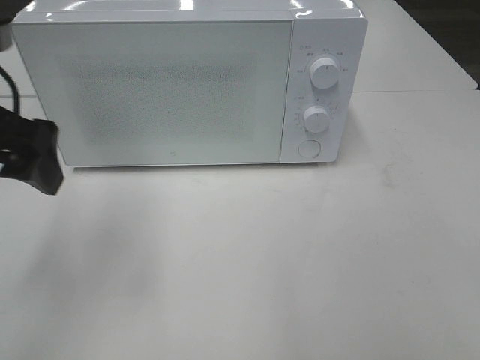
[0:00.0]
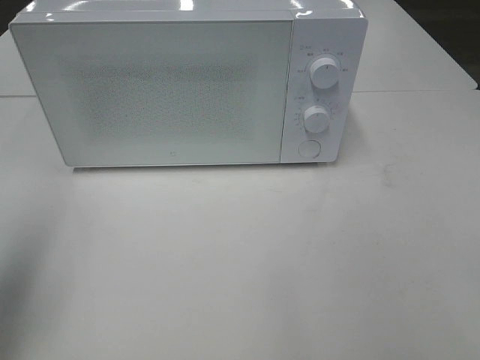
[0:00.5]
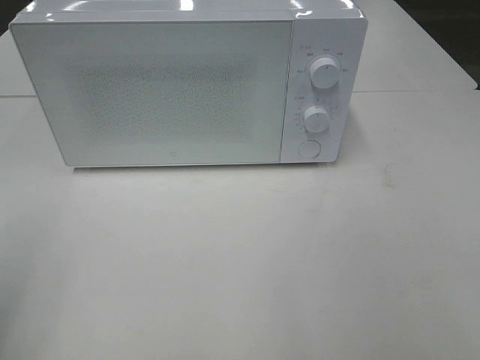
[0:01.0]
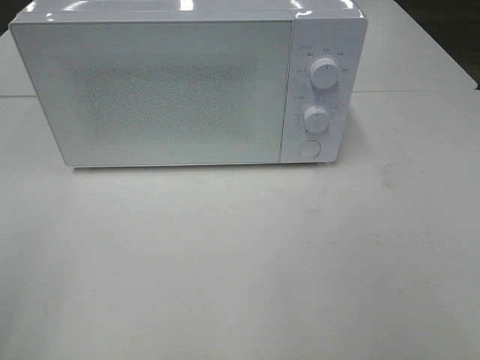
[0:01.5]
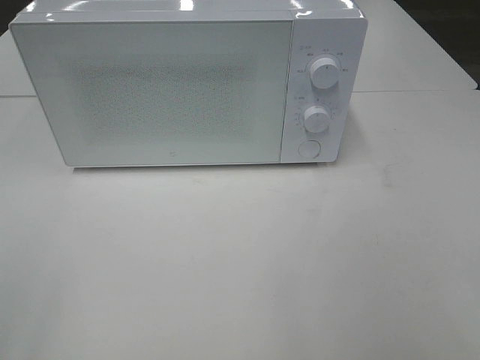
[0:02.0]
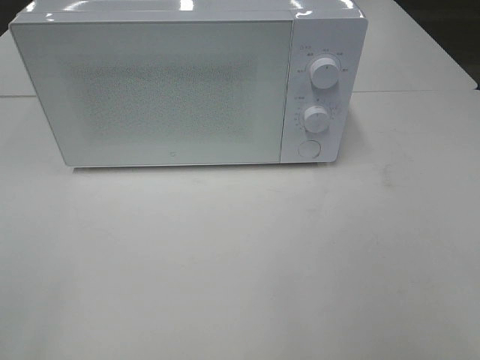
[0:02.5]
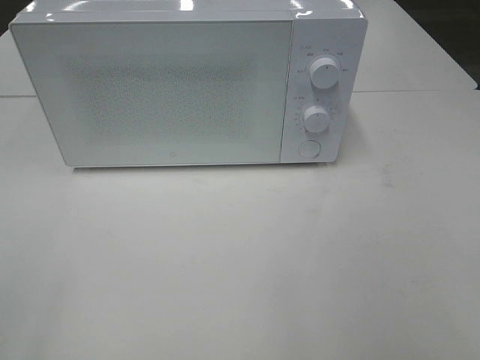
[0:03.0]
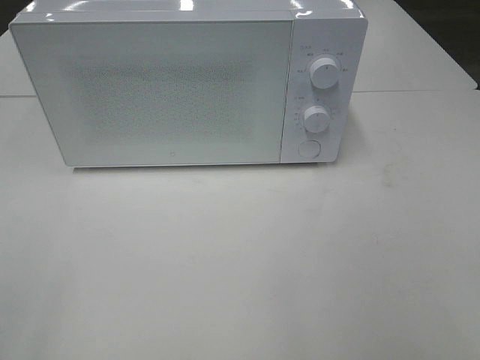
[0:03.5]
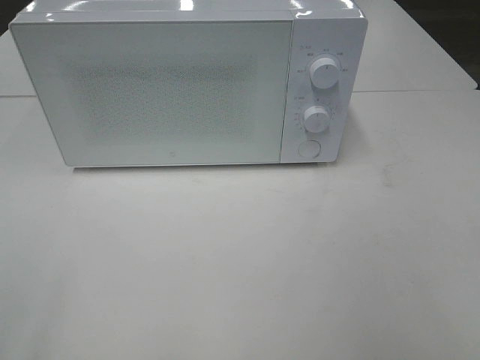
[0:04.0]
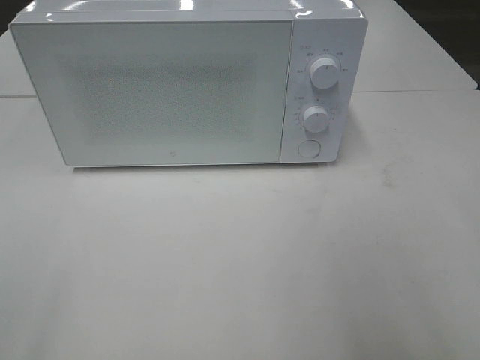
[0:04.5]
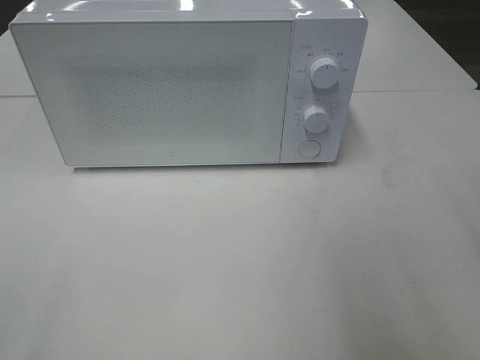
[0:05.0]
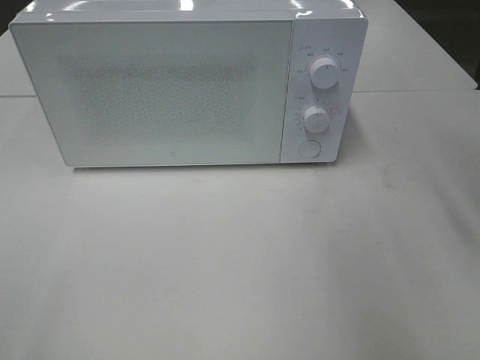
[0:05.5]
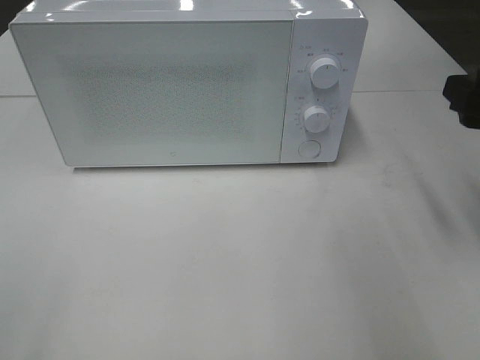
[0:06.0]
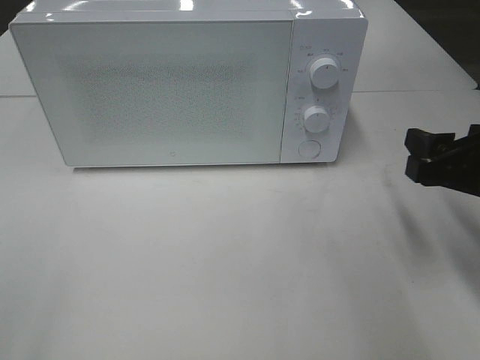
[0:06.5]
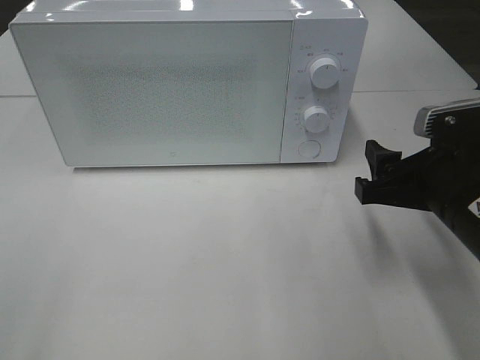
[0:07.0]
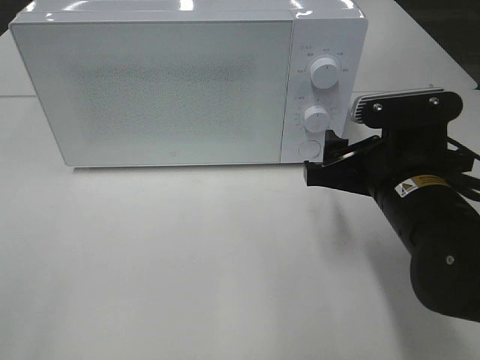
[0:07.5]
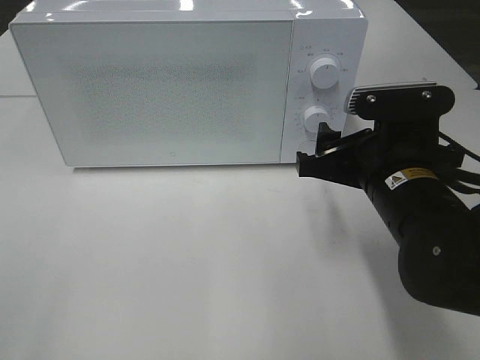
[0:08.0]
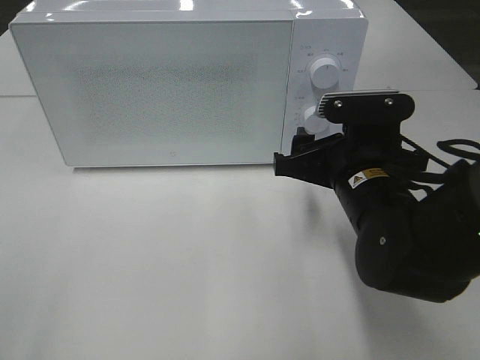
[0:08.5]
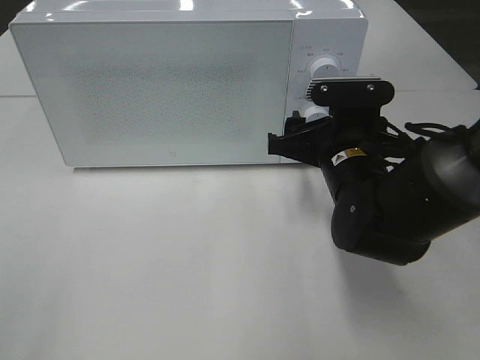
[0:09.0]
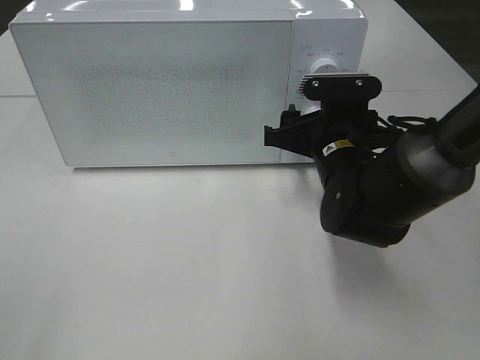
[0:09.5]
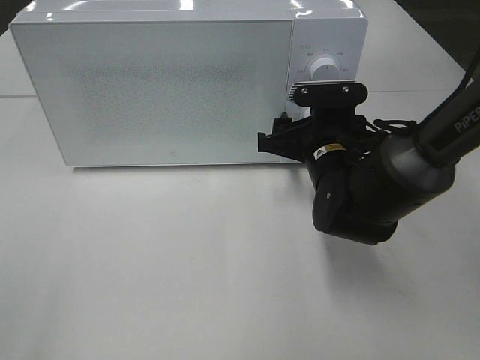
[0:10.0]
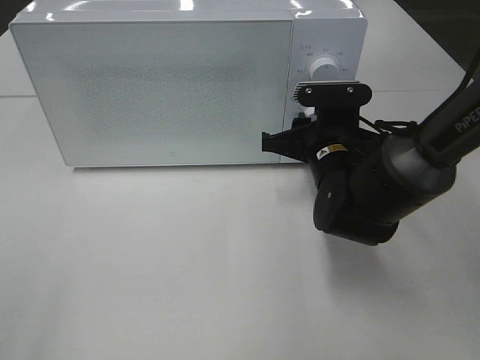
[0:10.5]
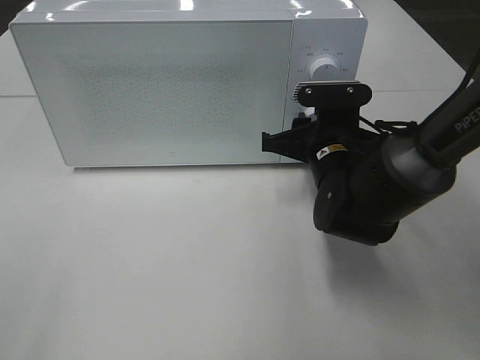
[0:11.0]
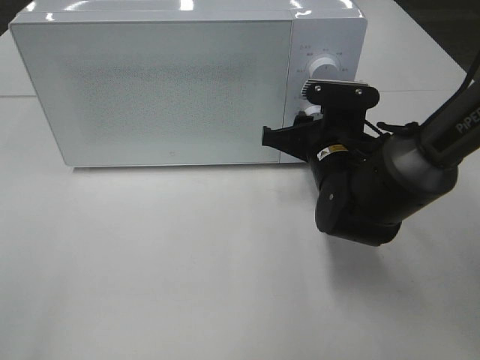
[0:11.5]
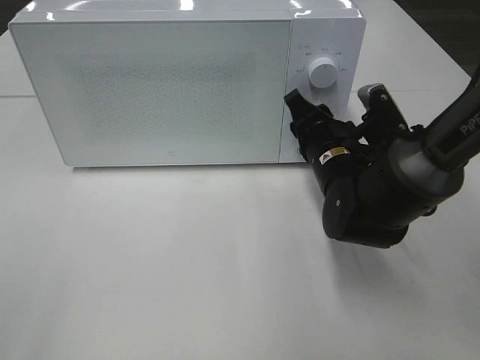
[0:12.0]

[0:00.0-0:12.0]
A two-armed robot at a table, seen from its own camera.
Task of the whole recording: Heat the burger.
0:00.0 to 0:02.0: The left gripper goes roughly 25 cm backward and to the left.
0:04.0 to 0:06.0: The right gripper goes approximately 20 cm forward.
0:06.0 to 0:08.0: The right gripper is displaced to the left and downward by some 15 cm.
0:08.0 to 0:10.0: The right gripper moves forward, about 10 cm.
0:10.0 to 0:12.0: The right gripper closes its fingers.

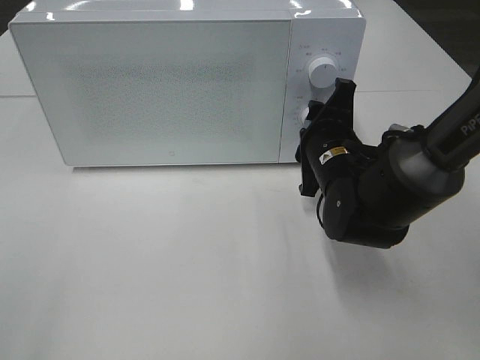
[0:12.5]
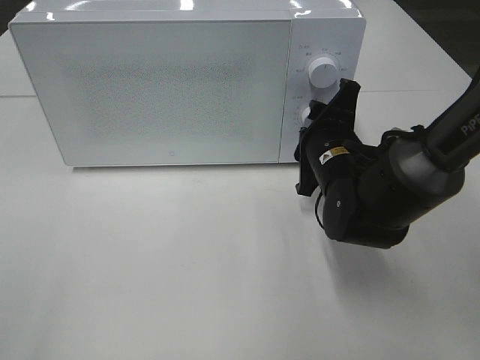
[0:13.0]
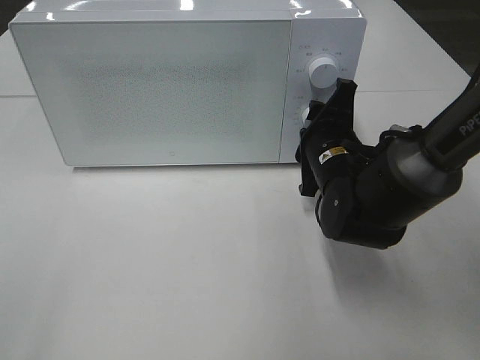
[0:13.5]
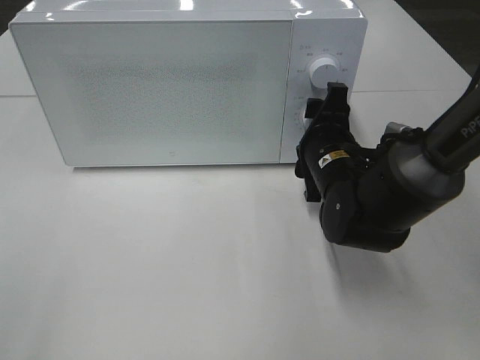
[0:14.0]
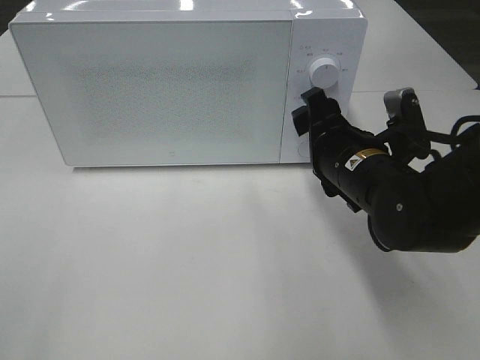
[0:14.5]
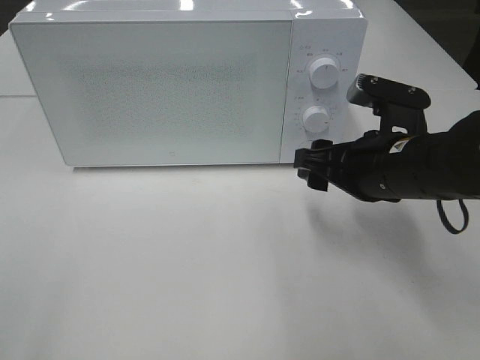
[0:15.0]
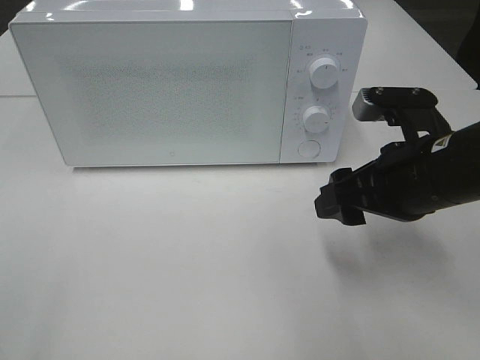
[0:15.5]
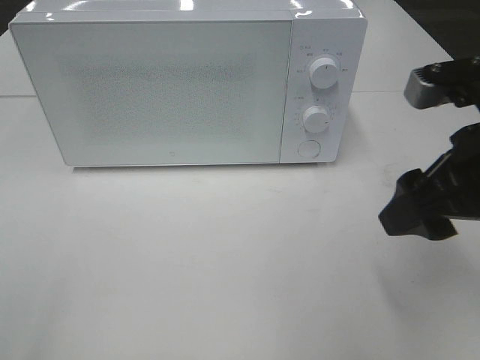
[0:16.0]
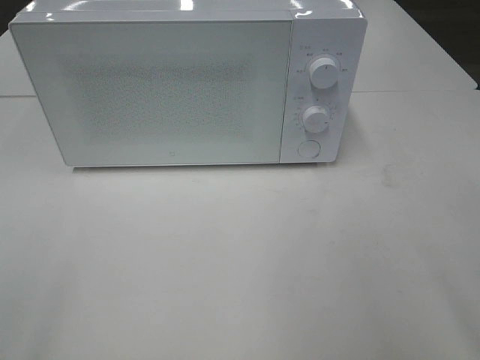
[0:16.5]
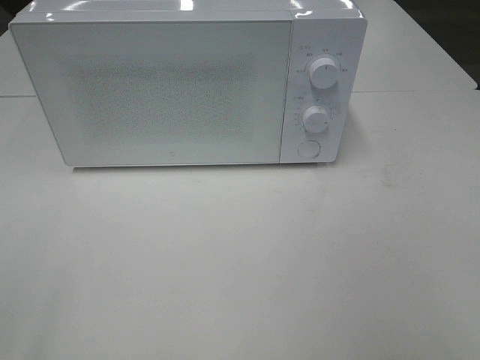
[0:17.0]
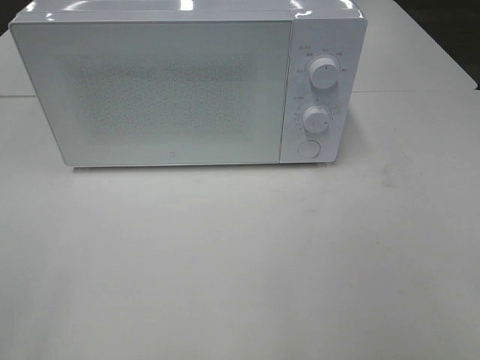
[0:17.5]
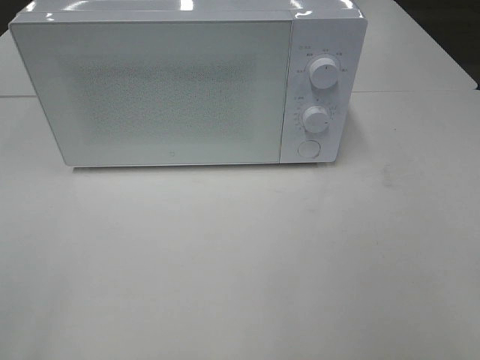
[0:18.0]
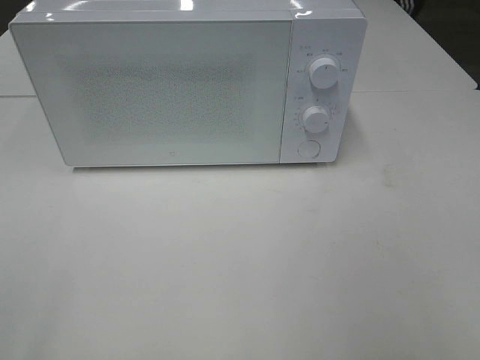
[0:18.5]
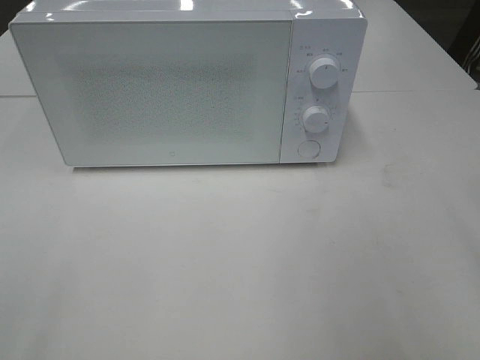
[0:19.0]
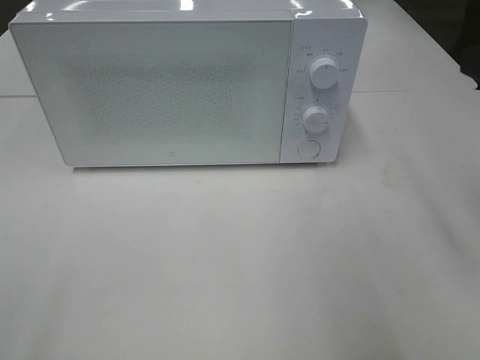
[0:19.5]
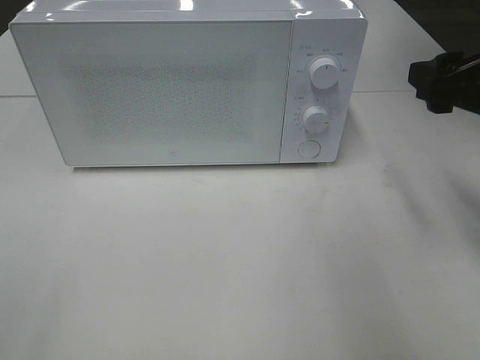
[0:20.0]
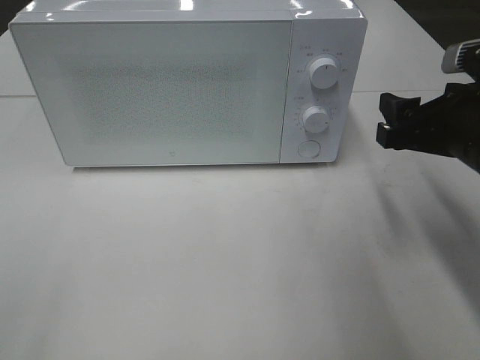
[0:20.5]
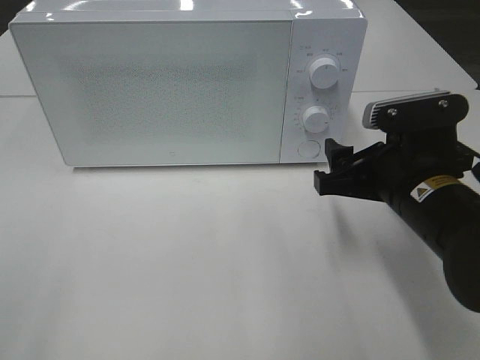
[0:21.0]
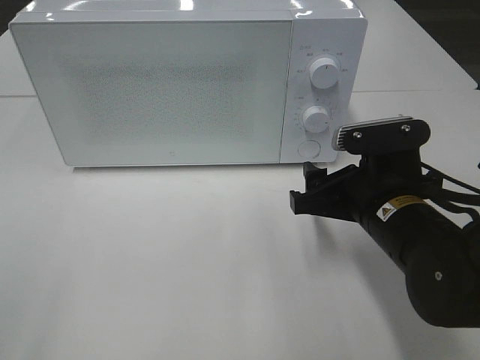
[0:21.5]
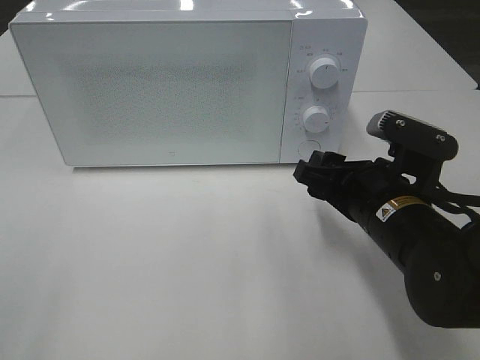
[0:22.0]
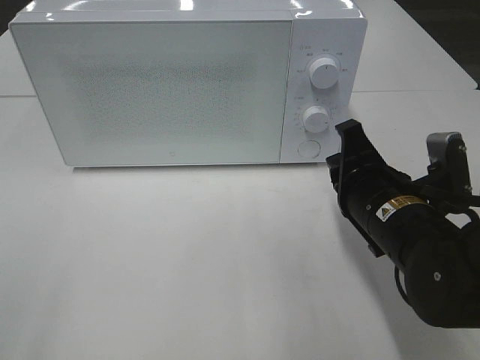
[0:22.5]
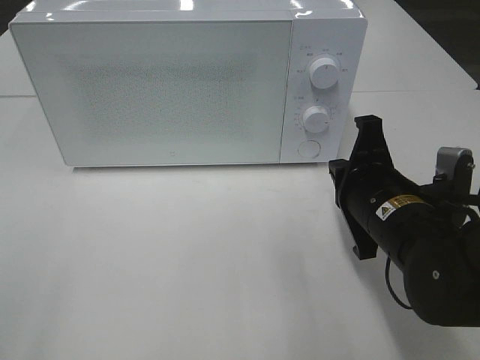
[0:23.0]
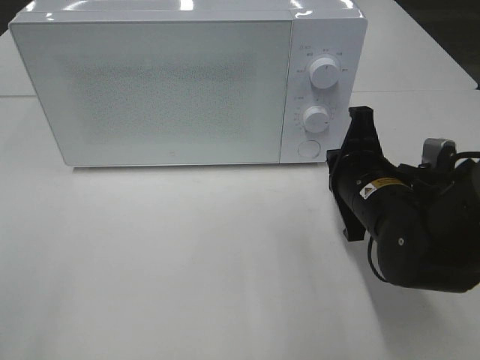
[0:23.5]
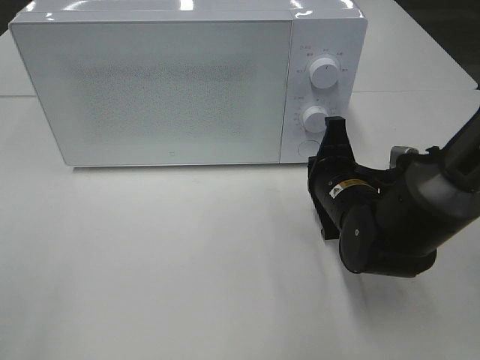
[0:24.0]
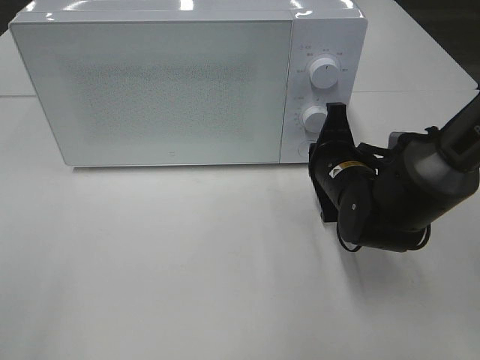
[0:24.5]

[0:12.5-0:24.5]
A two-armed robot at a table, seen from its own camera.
Task of the whole recording: Heat the burger.
0:12.5 to 0:14.5: The right gripper changes place by some 5 cm.
0:14.5 to 0:16.5: The right gripper travels backward, upward and to the right by roughly 30 cm.
0:18.5 to 0:20.5: The right gripper heads forward and downward, covering roughly 25 cm.
0:20.5 to 0:22.5: The right gripper travels to the left and downward by about 10 cm, and closes up.
0:22.5 to 0:24.5: The right gripper is displaced forward by approximately 10 cm.

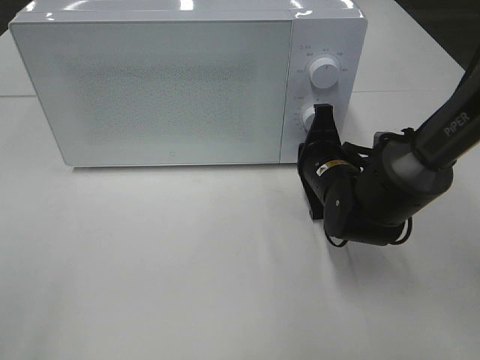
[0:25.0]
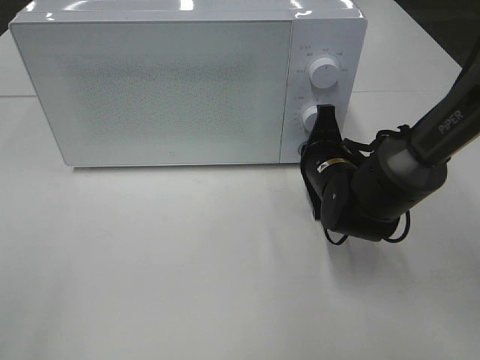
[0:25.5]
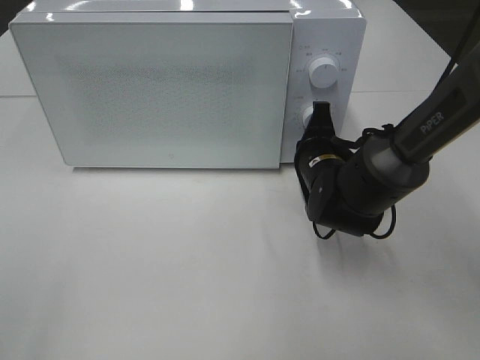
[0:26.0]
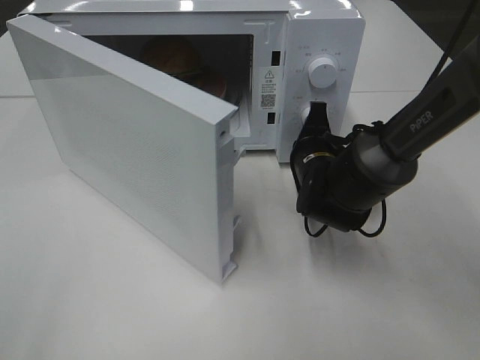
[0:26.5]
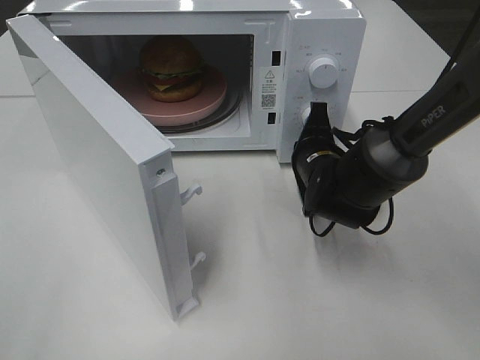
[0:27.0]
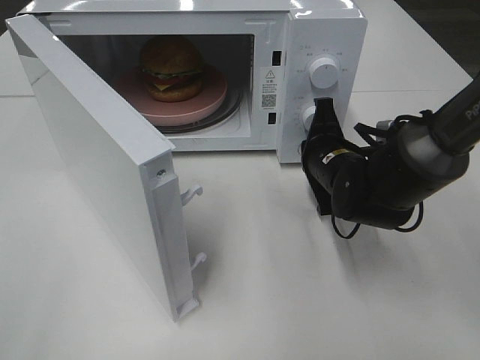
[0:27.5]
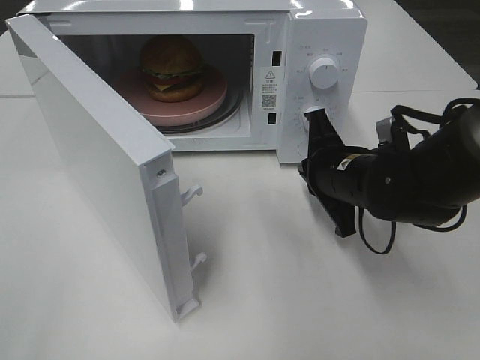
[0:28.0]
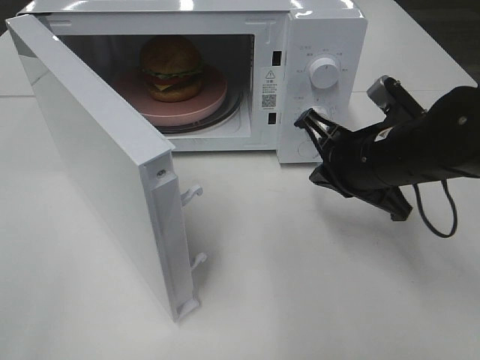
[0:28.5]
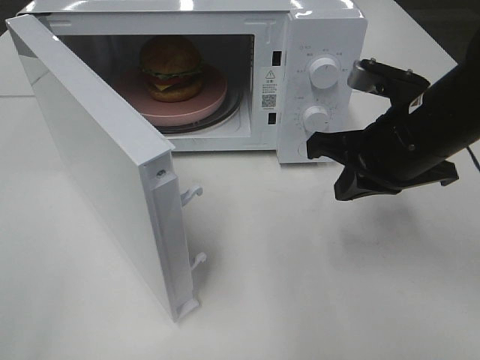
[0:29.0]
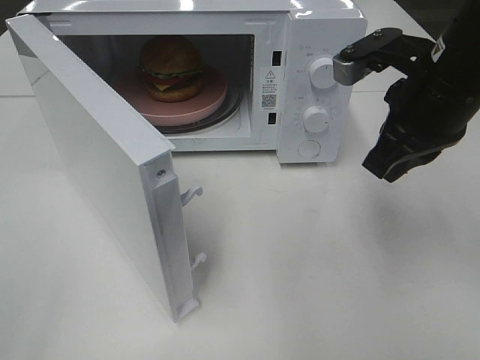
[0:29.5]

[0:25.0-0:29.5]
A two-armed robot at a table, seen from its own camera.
Task of the whole recording: Heat the burger.
Step, 0:25.0 to 0:27.5: Right hand: press the switch.
0:27.0 to 0:29.5: The right gripper is displaced upward and backward by about 20 cm.
